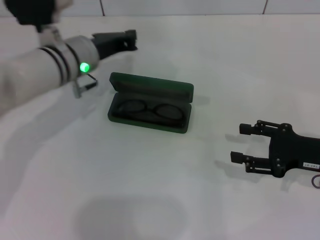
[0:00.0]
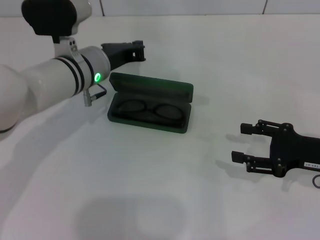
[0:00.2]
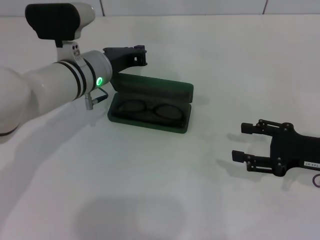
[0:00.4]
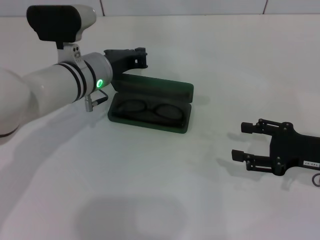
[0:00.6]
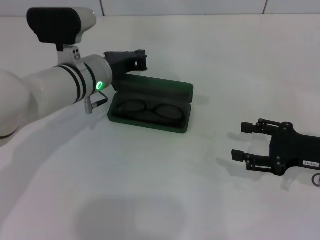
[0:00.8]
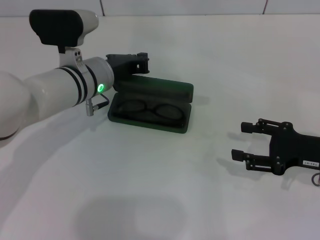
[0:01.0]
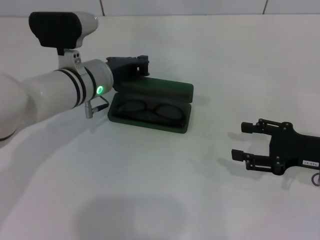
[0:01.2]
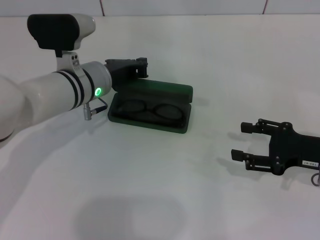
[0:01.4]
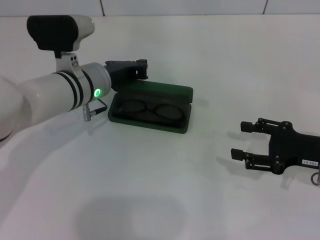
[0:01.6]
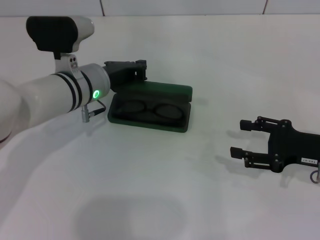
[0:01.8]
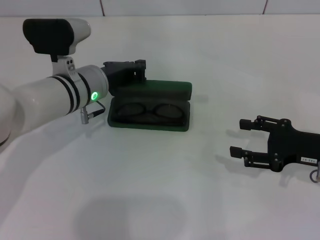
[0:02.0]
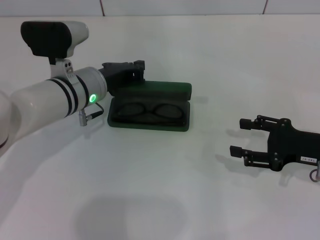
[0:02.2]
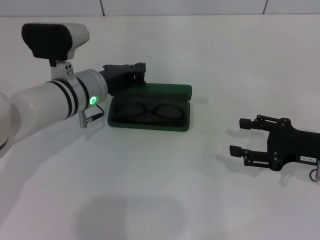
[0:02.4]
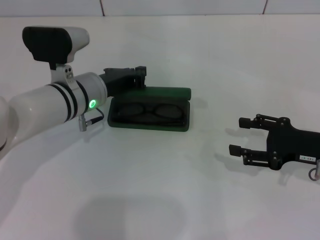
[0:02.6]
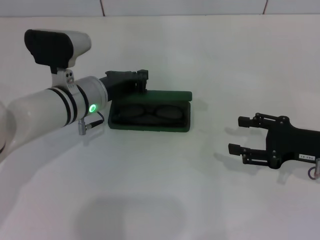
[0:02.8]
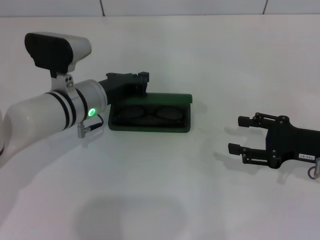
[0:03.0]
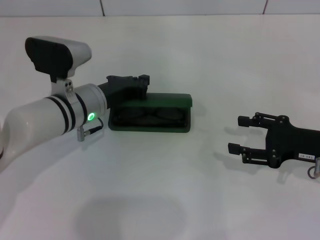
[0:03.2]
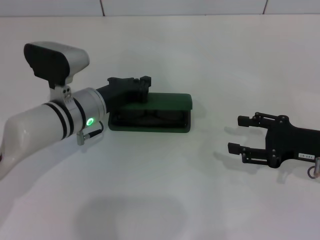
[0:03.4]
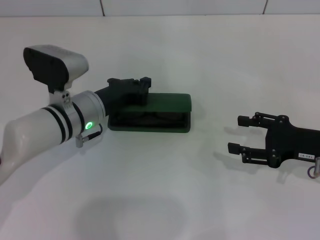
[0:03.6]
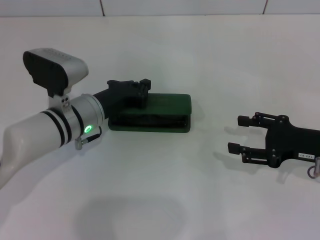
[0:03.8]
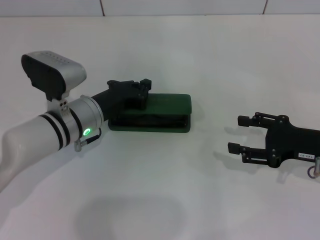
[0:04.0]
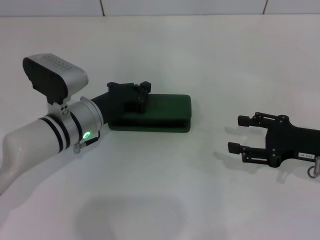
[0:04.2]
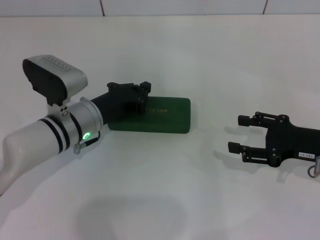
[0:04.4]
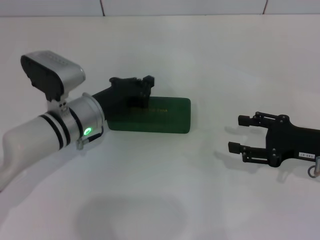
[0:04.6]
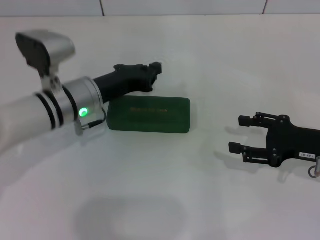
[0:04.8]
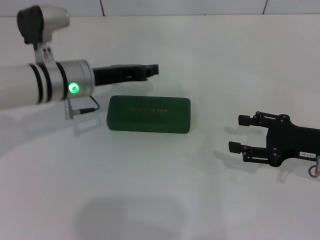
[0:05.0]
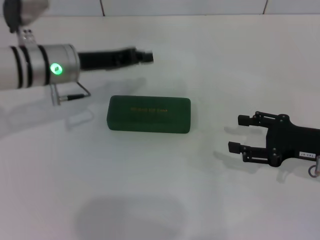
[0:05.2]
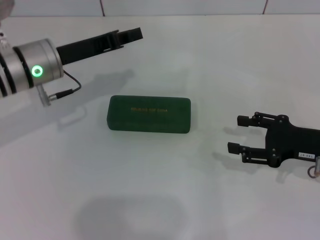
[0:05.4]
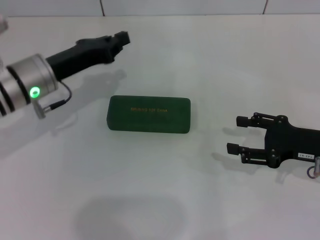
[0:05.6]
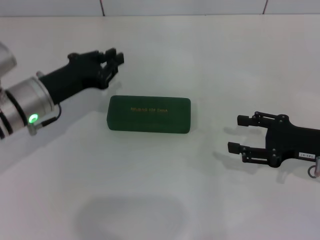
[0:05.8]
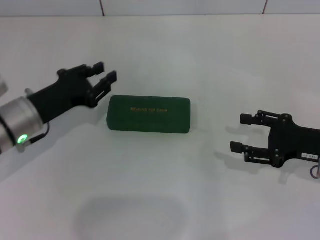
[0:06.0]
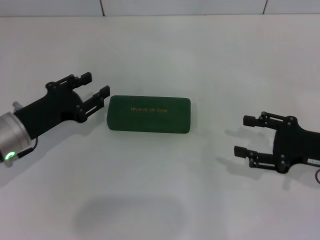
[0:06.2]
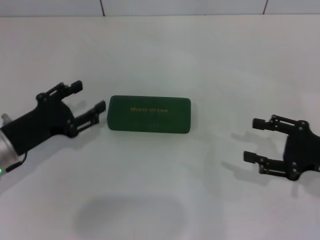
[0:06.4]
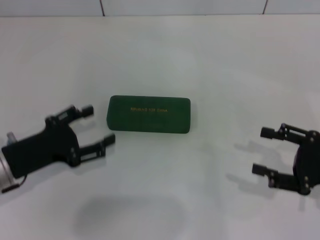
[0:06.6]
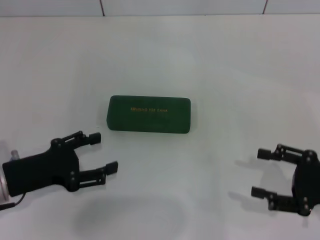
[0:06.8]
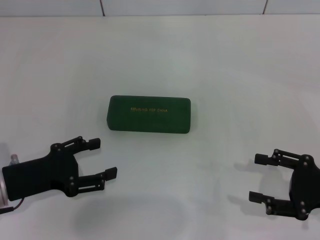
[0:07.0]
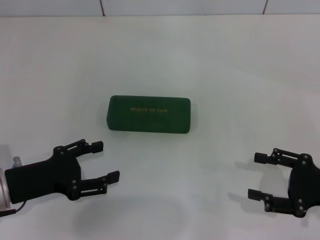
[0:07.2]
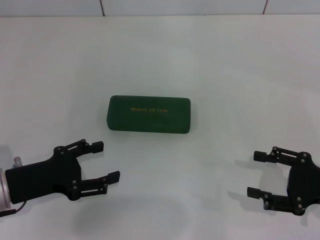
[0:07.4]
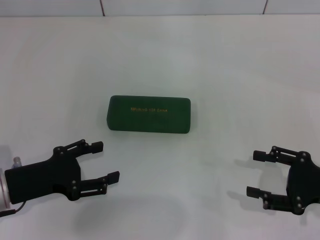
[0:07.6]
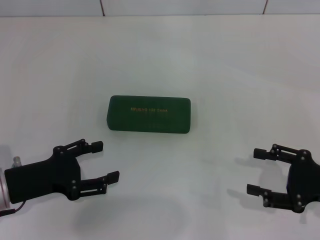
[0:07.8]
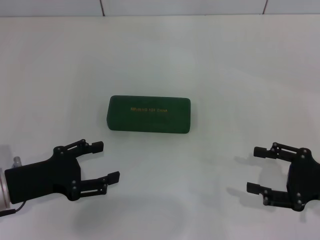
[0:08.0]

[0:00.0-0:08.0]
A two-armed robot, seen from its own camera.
Step, 0:00.0 to 0:04.2: Close the glasses case with your left hand.
0:00.0 to 0:01.6: The grippers move only a little.
0:01.6 to 0:03.2: There are only small adjustments of the grippers.
0:03.2 to 0:04.8: The grippers move only a little.
0:04.8 to 0:06.4: The left gripper goes roughly 15 cm to the left and backward, and opens.
